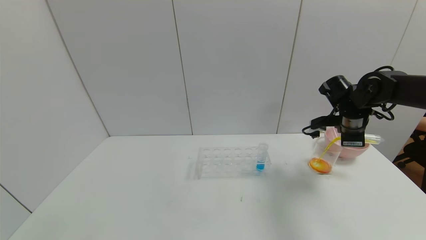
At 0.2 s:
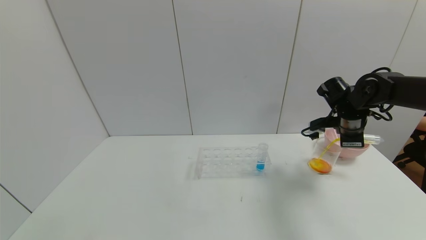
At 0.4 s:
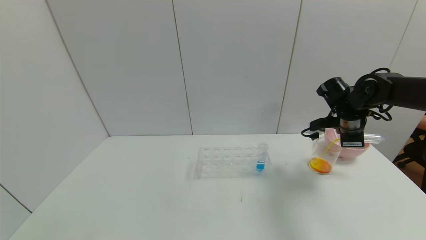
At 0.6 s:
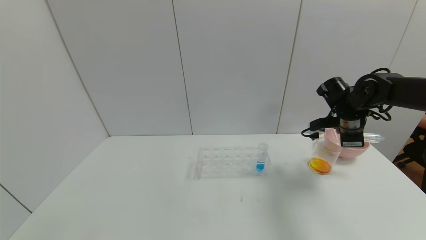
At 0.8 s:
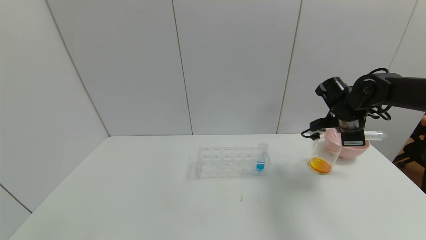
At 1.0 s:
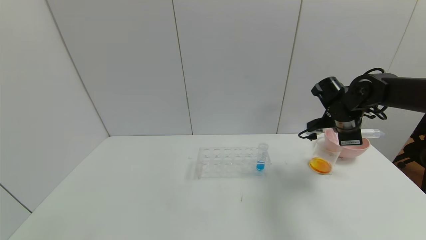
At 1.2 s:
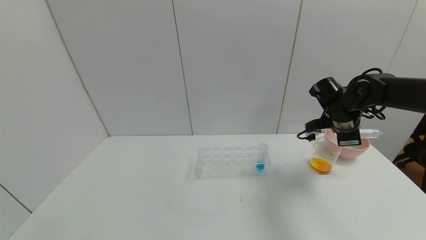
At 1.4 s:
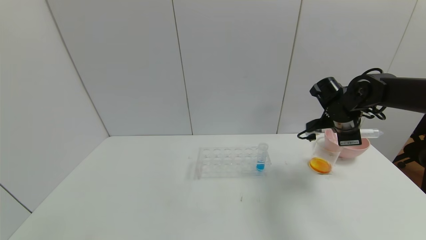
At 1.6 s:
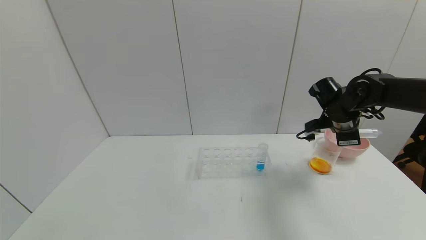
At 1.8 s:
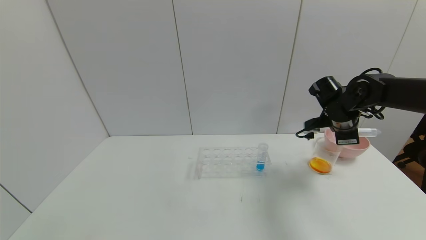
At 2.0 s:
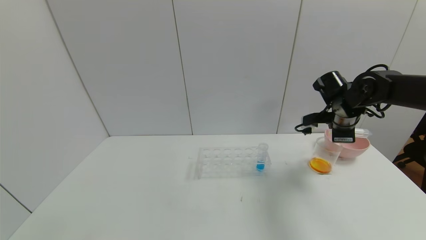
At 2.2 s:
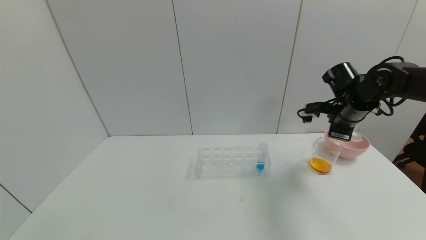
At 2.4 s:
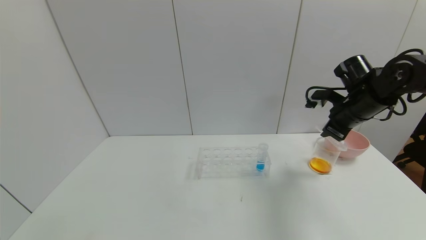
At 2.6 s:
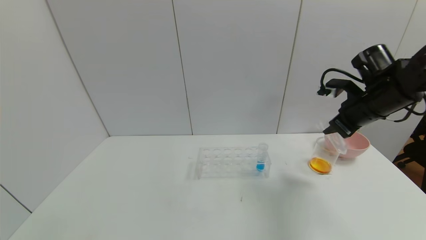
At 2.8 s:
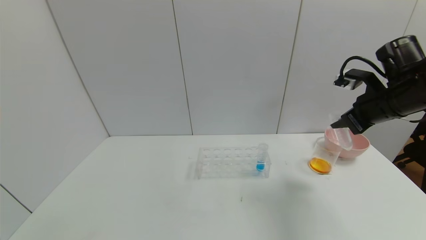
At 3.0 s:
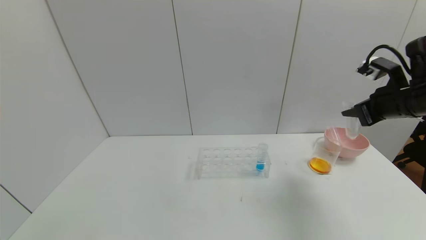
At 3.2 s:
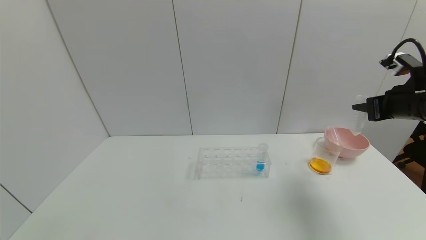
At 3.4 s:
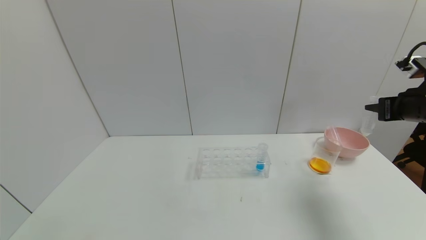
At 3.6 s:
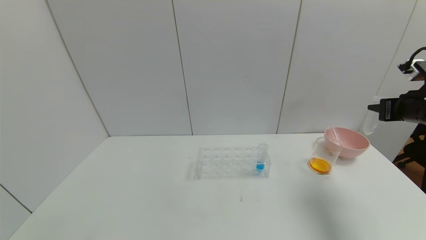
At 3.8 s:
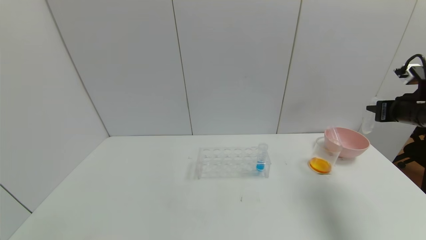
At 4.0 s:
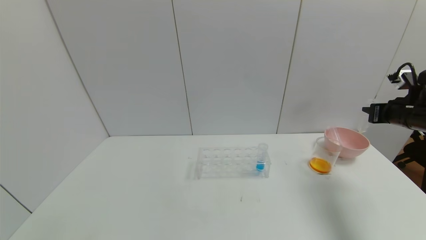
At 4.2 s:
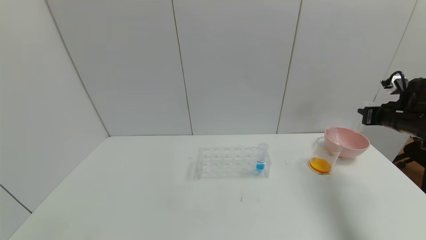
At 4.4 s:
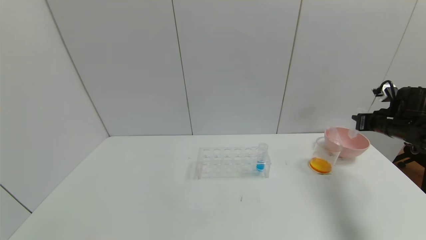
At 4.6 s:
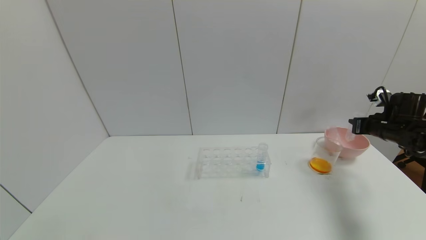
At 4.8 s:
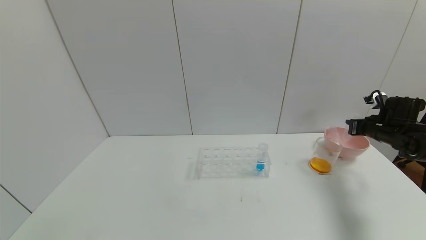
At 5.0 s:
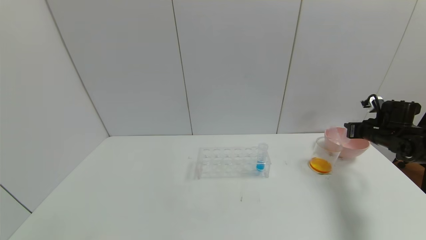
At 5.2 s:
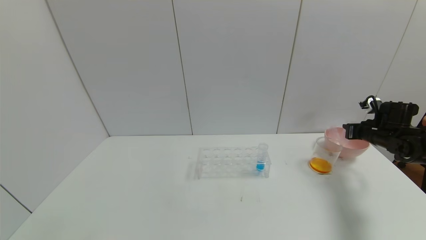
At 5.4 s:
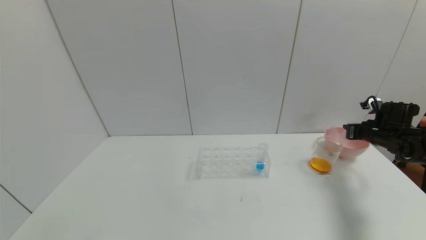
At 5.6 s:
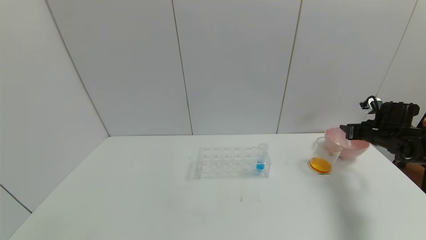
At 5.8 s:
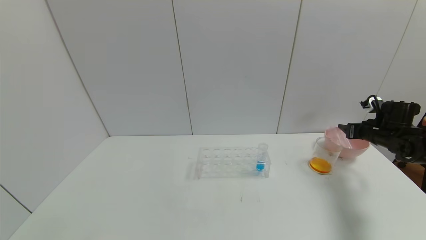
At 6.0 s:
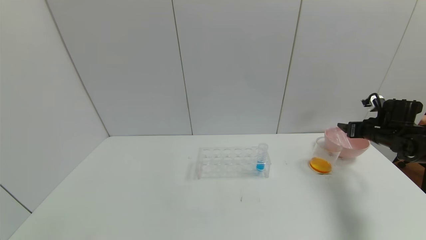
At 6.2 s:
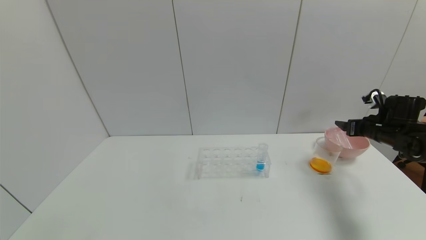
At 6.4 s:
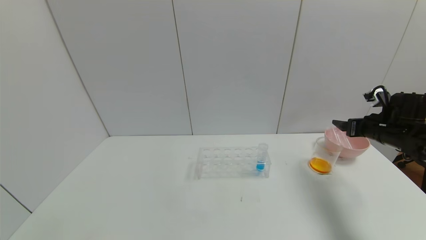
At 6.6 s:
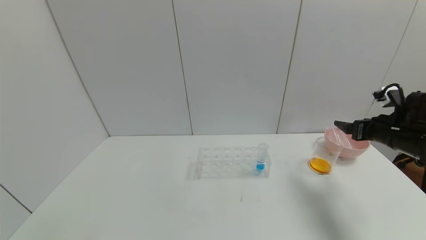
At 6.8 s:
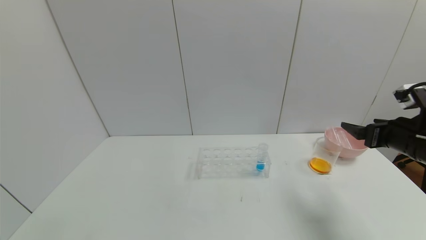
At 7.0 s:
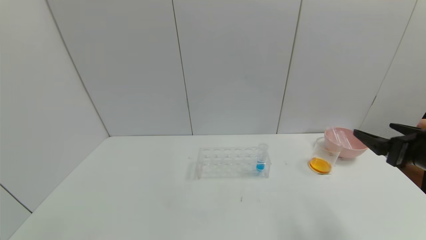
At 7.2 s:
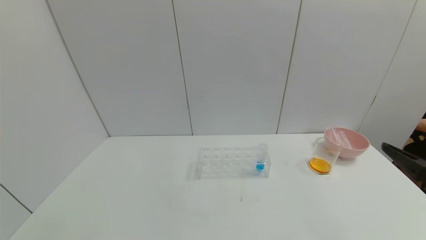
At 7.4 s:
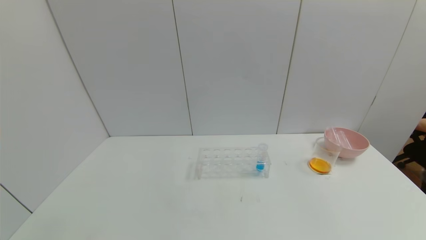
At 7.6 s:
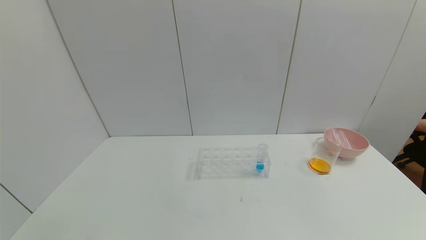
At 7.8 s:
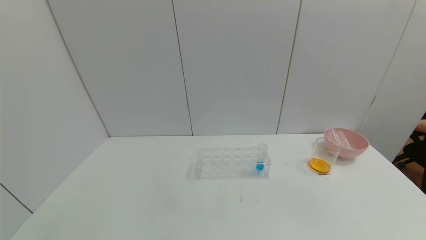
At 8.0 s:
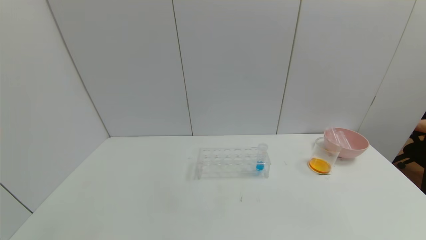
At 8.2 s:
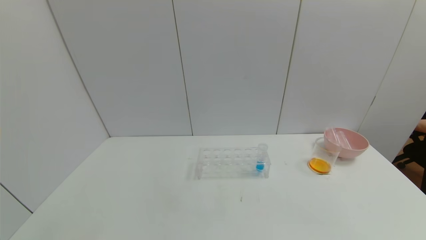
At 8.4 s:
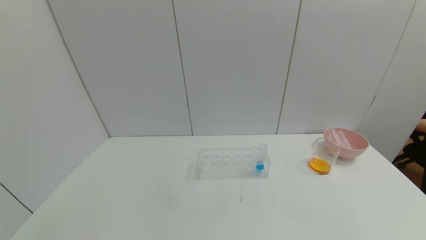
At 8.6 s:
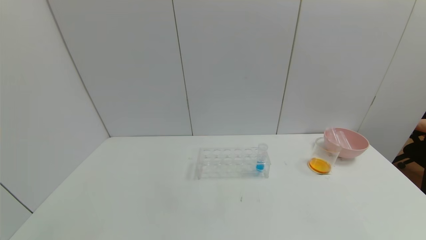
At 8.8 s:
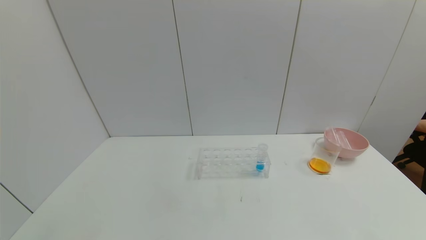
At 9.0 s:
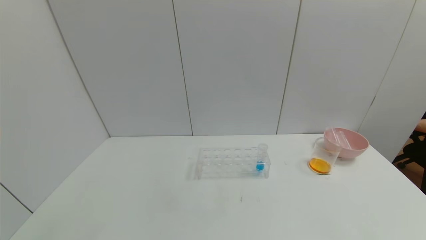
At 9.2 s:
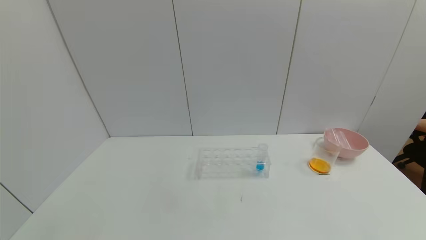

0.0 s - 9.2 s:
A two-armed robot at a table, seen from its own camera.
Task of the whole recording: pick up the test tube with yellow pigment and the test tube with red pigment by grippers and pour them into the beaker.
Step, 1.0 s - 5.6 s: Place the test tube into the bowl with the right gripper.
0.0 s - 1.6 s: The grippers stay close to where they were, moving slightly.
1.6 s - 3.0 s: The right gripper heads backward, upward and to the right, covering about 15 cm.
3.0 s - 4.6 s: The right gripper goes roughly 15 cm downward, to the right and forward.
4.6 s - 6.2 s: The right gripper opens.
6.2 s - 7.6 s: The right gripper is displaced backward by some 40 cm.
